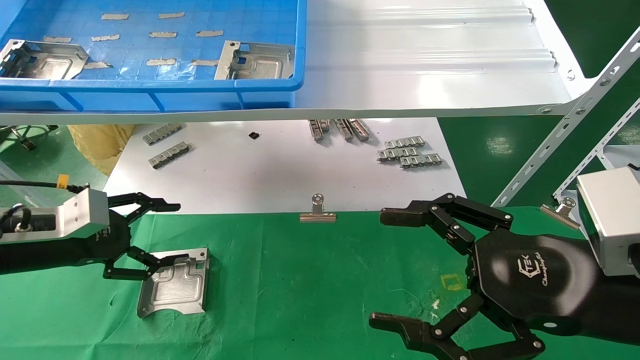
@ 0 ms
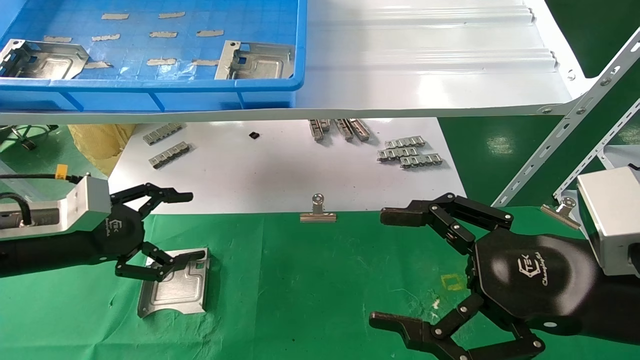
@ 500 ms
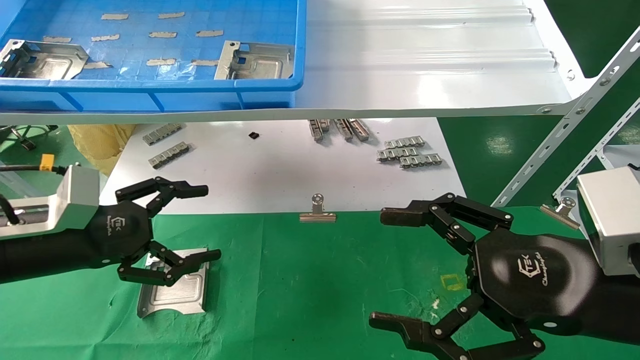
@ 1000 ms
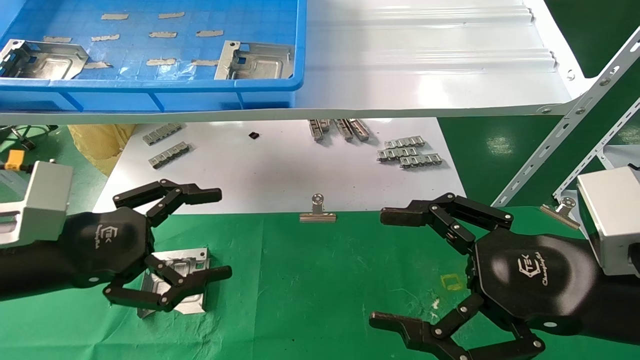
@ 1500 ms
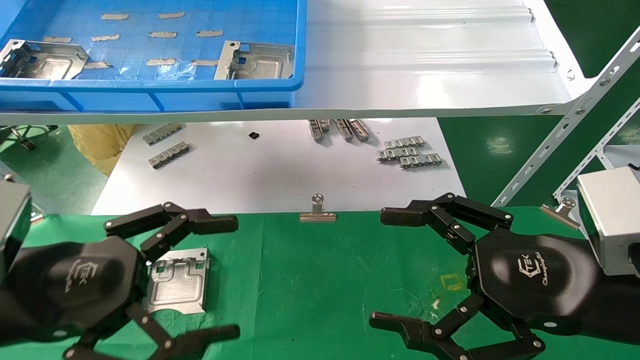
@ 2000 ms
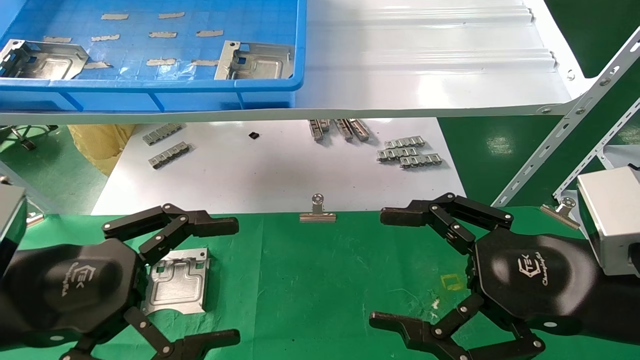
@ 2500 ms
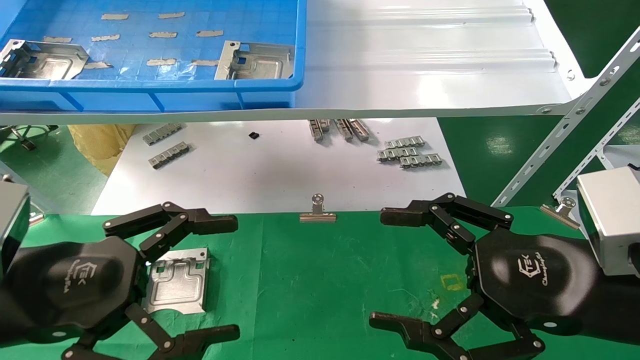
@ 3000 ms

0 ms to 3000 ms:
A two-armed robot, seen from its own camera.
Task of the whole recording: use the mechanical arm to pick up the parts and place them on the table.
0 ms to 1500 ms: The left gripper shifts roughly 10 cm backward and to the right.
1500 ms to 3000 ms: The left gripper shifts approximately 5 cm backward.

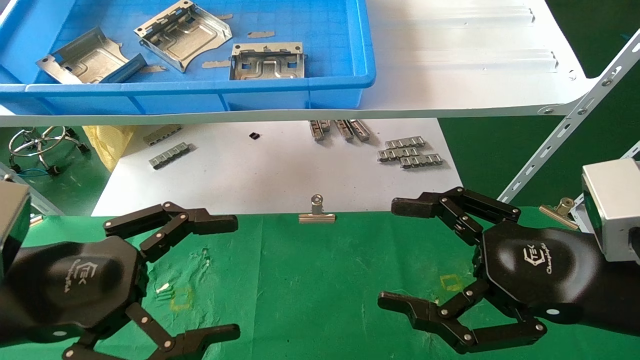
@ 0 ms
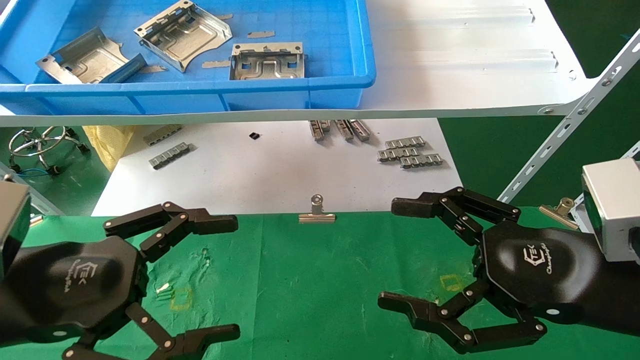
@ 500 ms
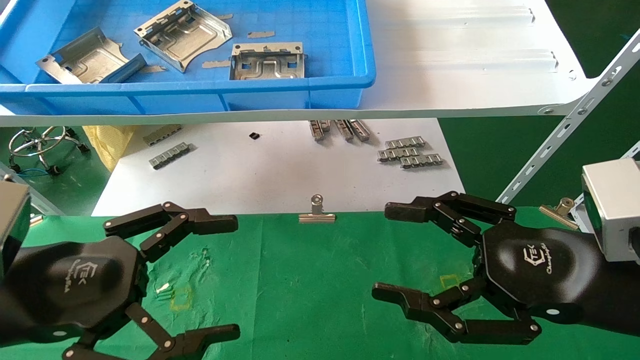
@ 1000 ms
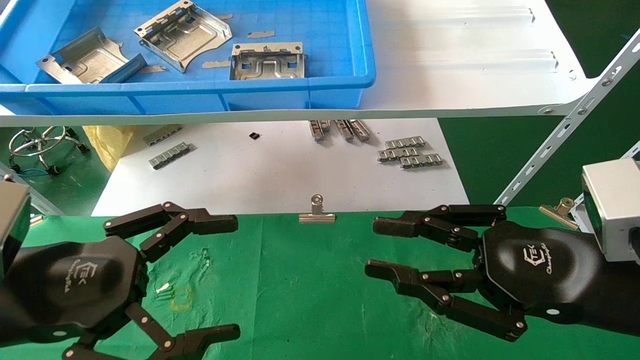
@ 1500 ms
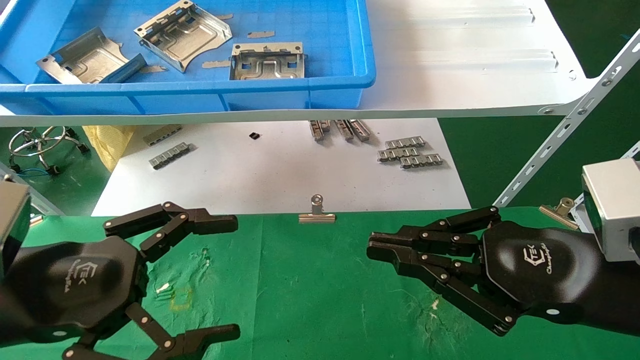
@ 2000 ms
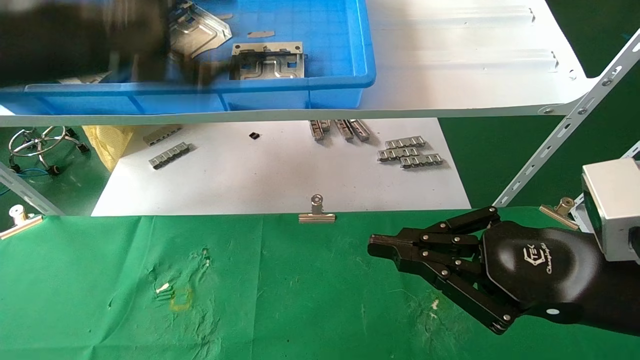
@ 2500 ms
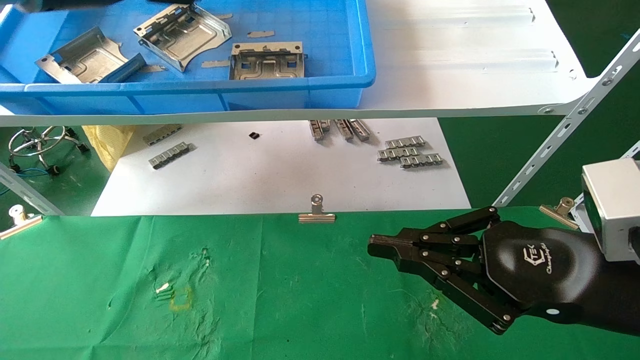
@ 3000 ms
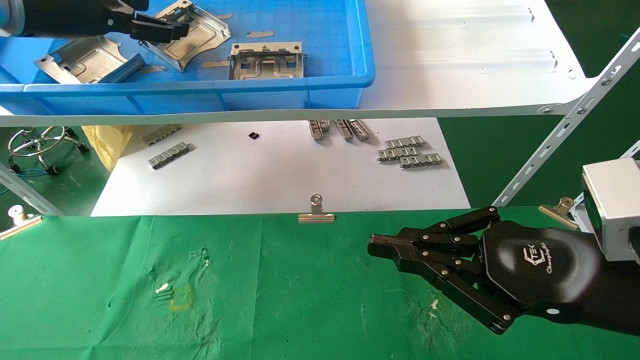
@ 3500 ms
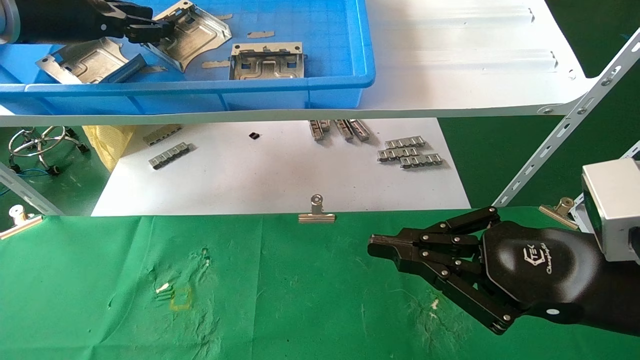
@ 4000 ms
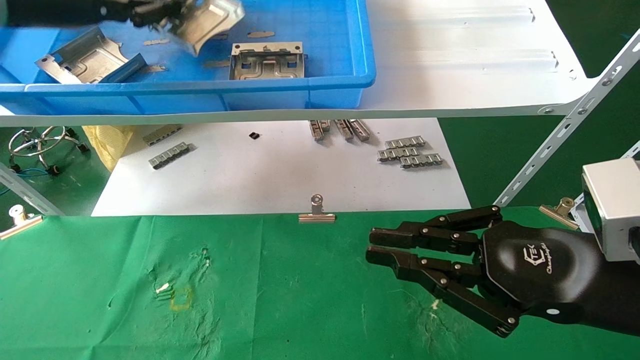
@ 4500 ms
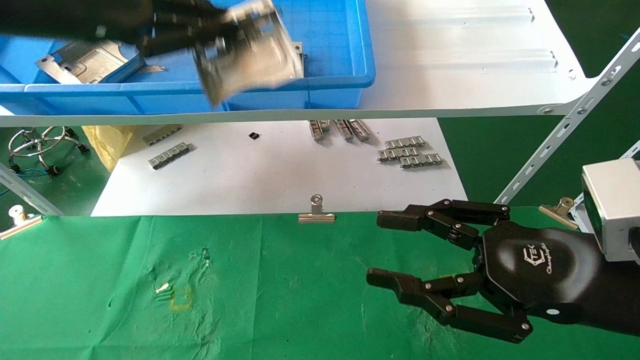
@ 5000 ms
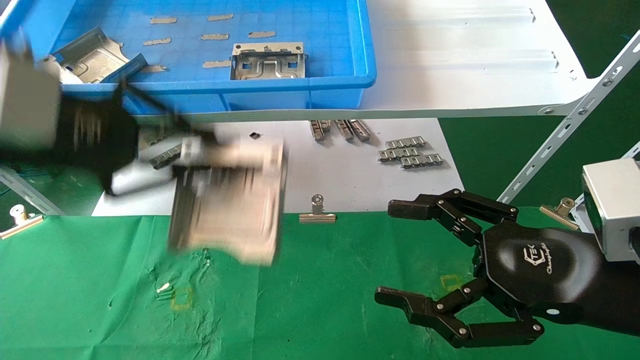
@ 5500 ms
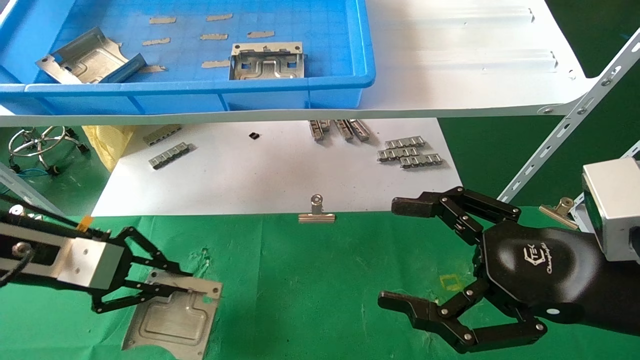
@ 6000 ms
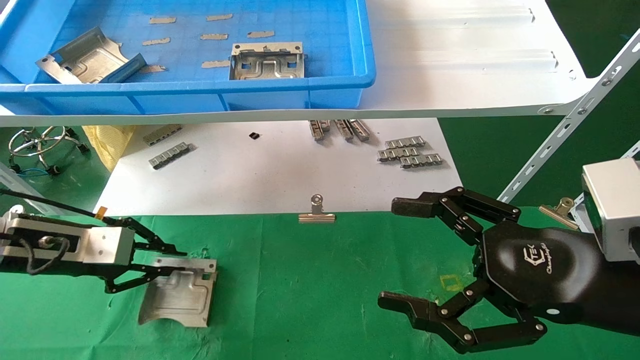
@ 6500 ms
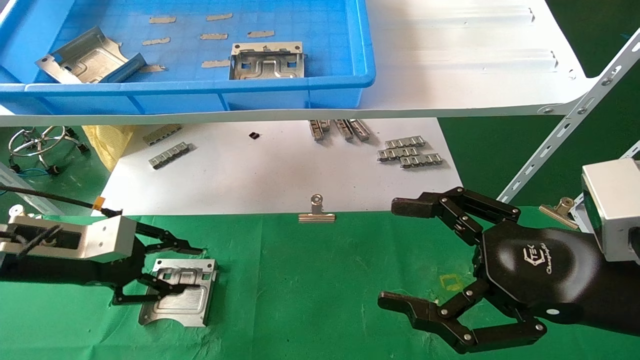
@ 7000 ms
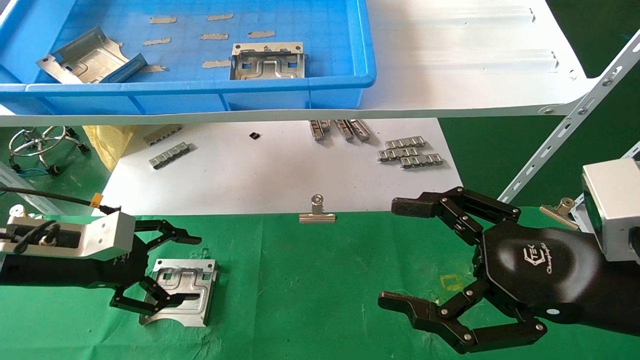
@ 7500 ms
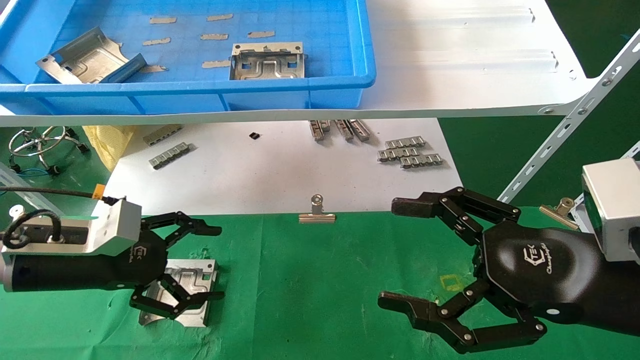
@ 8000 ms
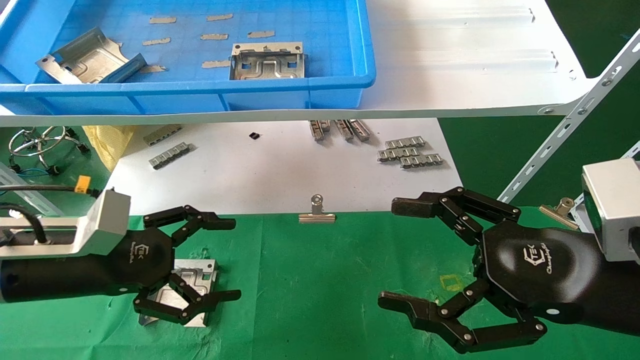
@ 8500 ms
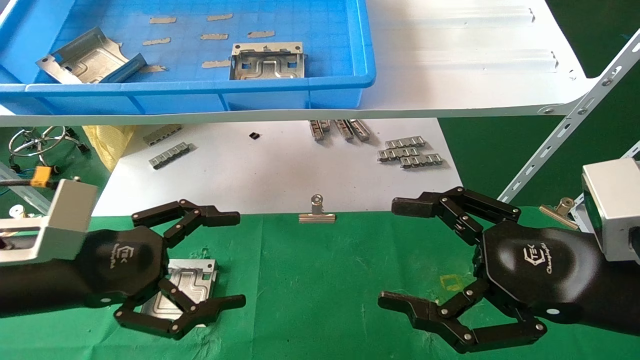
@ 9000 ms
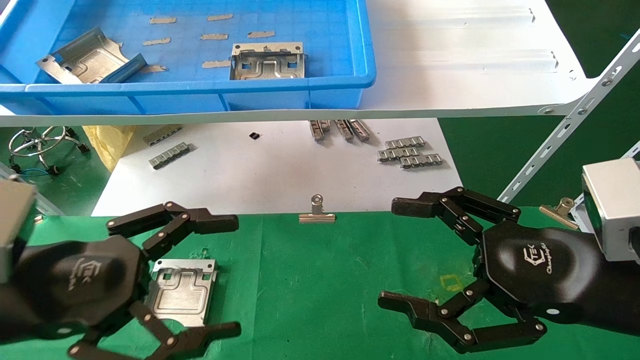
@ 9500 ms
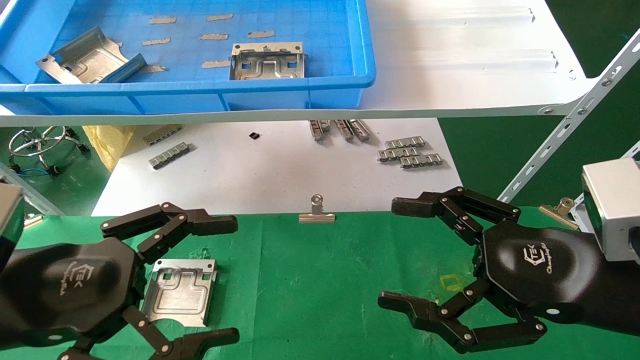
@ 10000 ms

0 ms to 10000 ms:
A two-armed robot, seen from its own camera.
Task of the whole recording: use the mechanical arm to pick up the parts and place them on the table.
Step, 2500 ms to 4000 ms: Pick up the hard drive bracket from the feeding area.
Step, 4500 ms to 6500 ms: Place the hard drive bracket into the box.
0 ms to 2000 ms: The right gripper closes.
2000 ms to 4000 ms: The left gripper goes roughly 30 cm upward and forward, and closes up.
4000 ms to 6000 ms: The right gripper opens its fingers. The left gripper travels downward by roughly 20 cm, and closes its fingers.
6000 ms to 8000 ms: The left gripper moves roughly 5 cm, and opens its fingers.
8000 ms to 10000 ms: The left gripper moves backward, roughly 15 cm.
